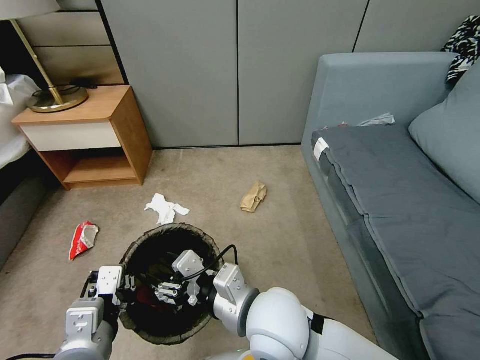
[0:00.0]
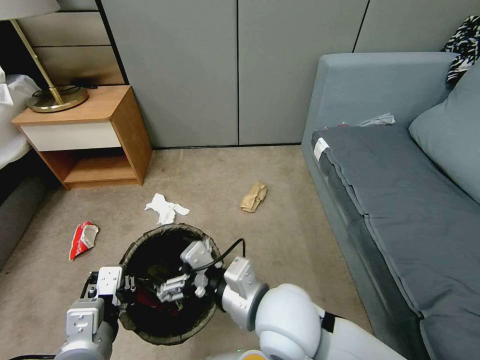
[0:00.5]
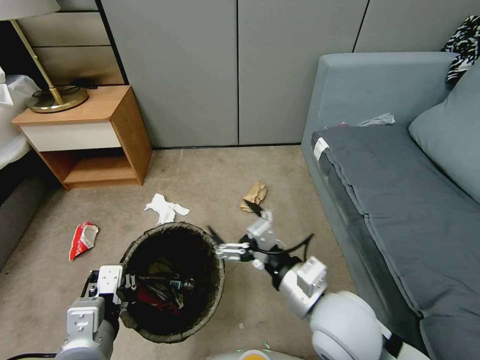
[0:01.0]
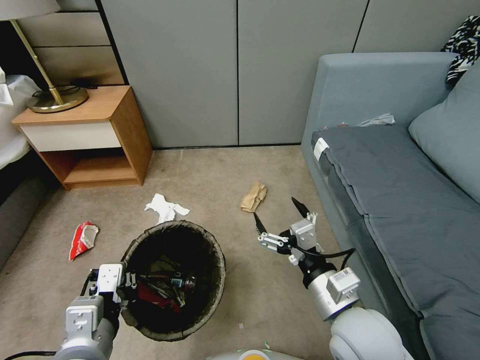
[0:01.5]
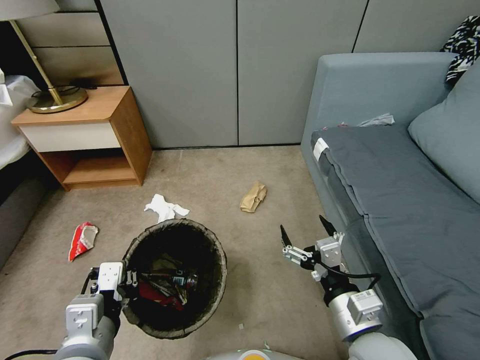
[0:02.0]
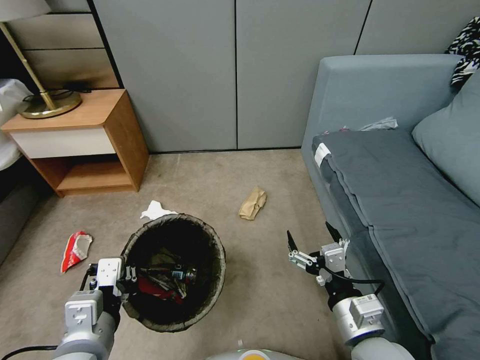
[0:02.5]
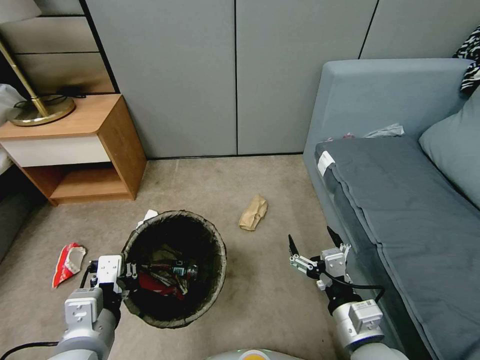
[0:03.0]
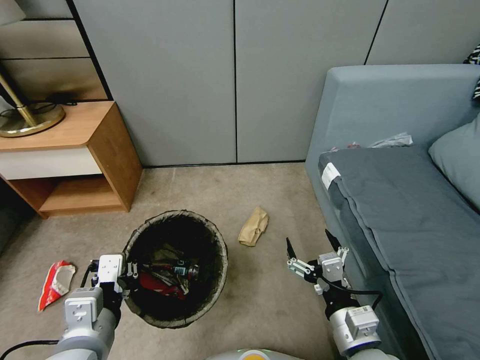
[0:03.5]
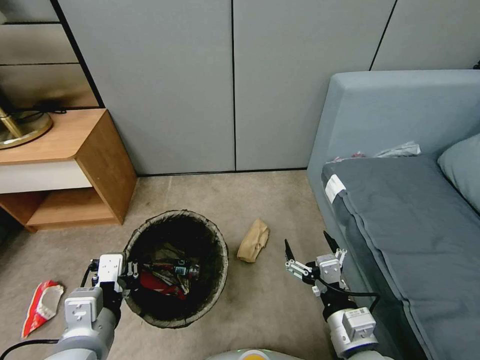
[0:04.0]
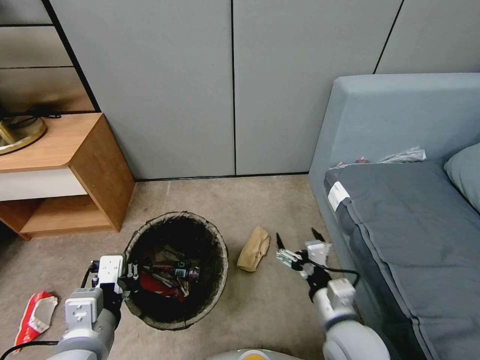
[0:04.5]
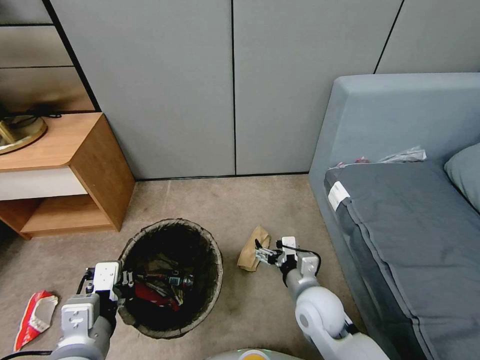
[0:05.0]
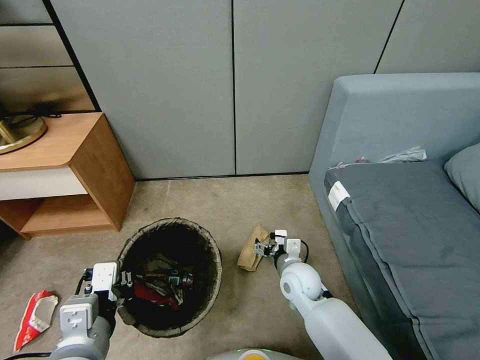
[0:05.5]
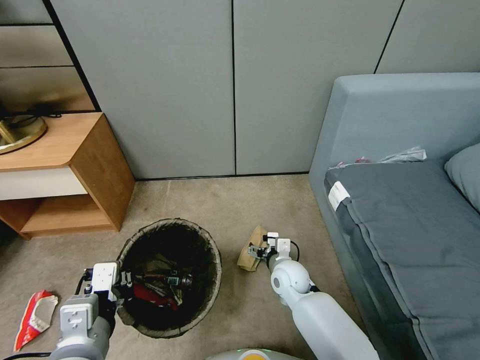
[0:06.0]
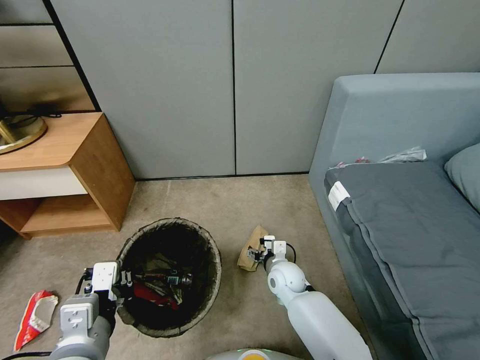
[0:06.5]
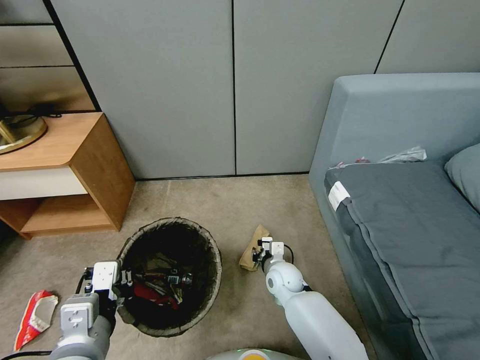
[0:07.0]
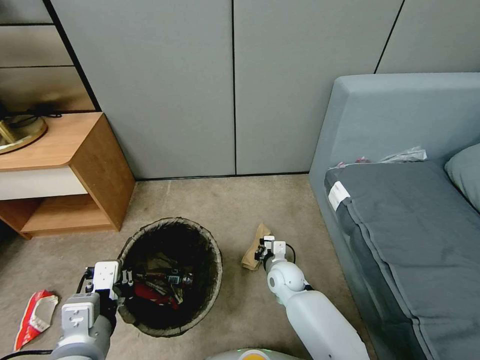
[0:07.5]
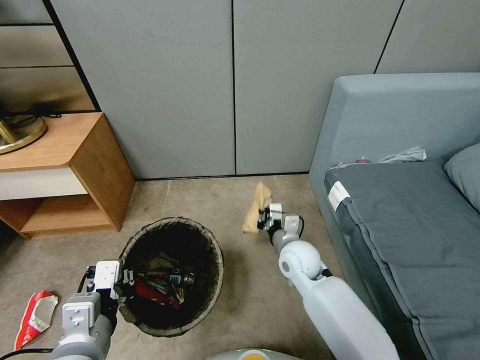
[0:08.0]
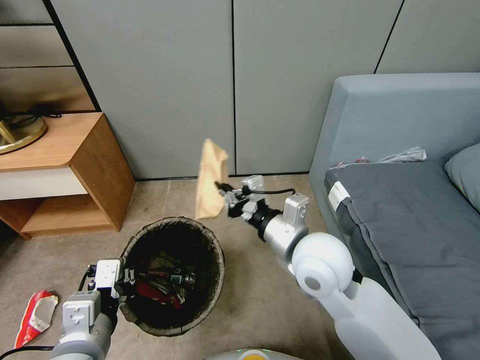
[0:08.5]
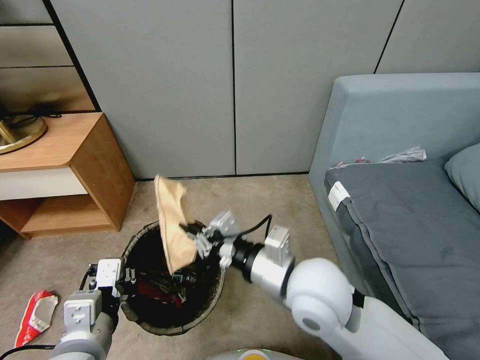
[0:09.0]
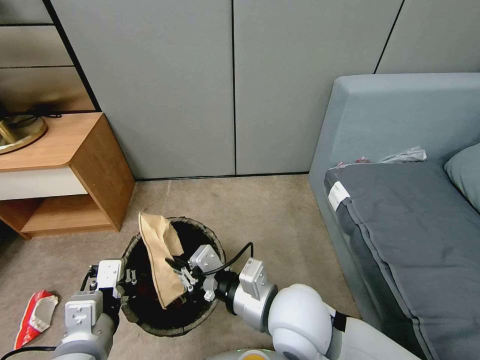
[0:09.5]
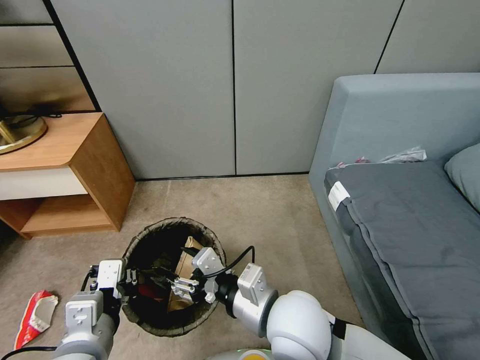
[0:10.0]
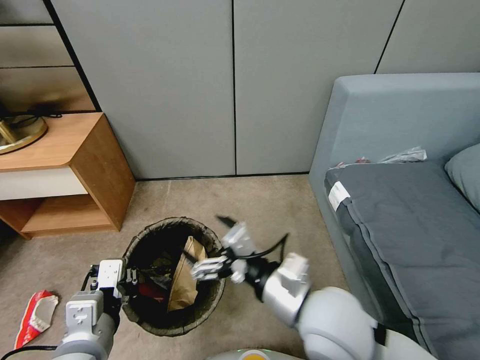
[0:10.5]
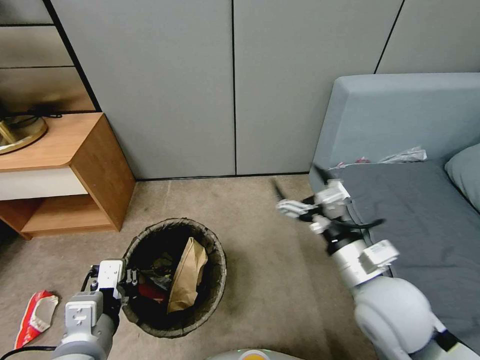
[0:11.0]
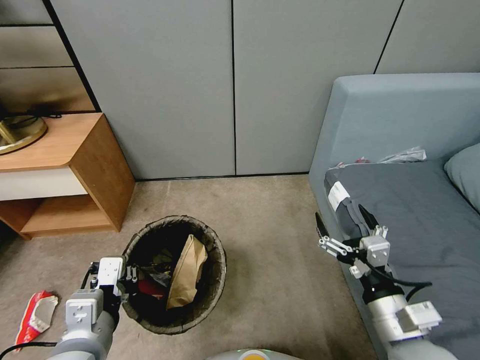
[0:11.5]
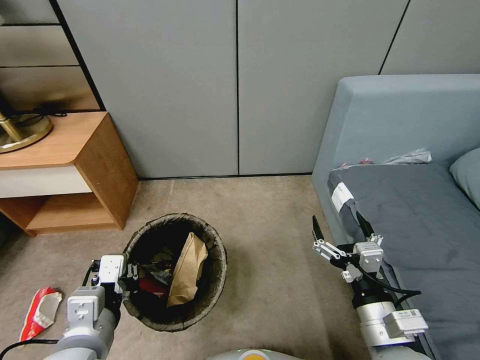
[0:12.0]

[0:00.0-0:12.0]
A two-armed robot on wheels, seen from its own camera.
Task of the whole recording: Pick up the trash bin, then pick up the garbage from the floor and place it into the trash bin.
0.0 to 2.0 s: The right gripper moves to the right, roughly 15 cm, and opens up.
4.0 to 6.0 s: The right gripper heads forward and downward, covering about 25 cm.
6.0 to 8.0 s: The right gripper goes some 10 cm upward, and closes up.
8.0 to 10.0 s: The right gripper travels backward and upward by some 20 cm, and opens up.
10.0 to 12.0 s: The right gripper shifts some 15 cm to the right, and opens its fingers.

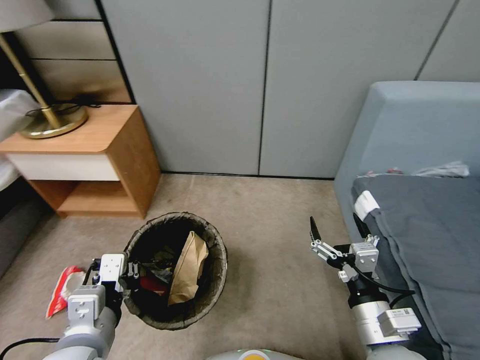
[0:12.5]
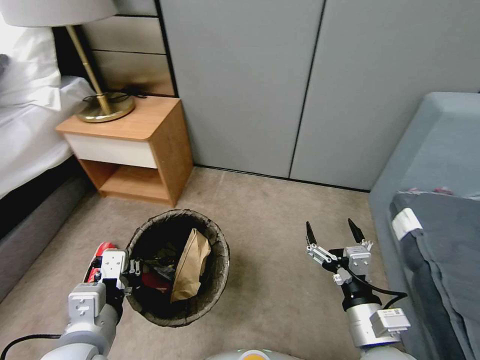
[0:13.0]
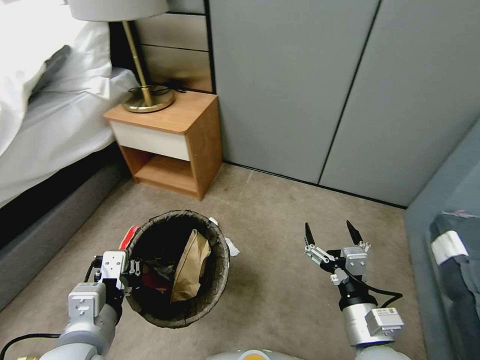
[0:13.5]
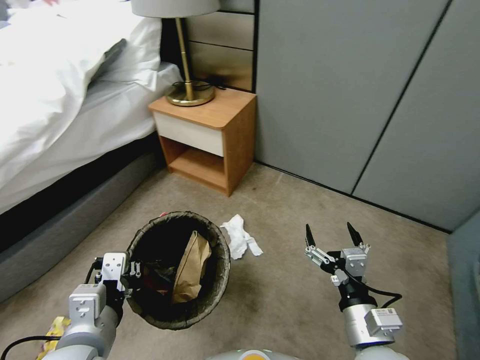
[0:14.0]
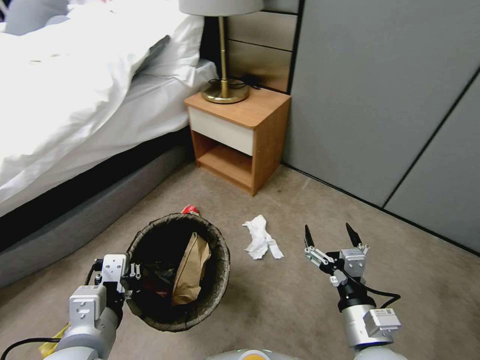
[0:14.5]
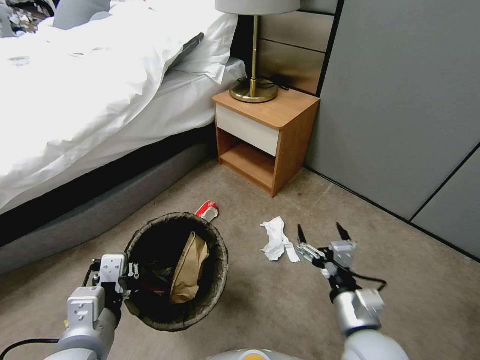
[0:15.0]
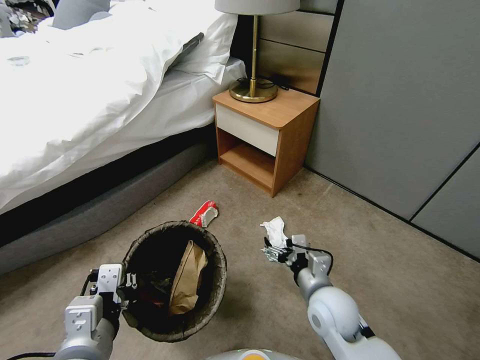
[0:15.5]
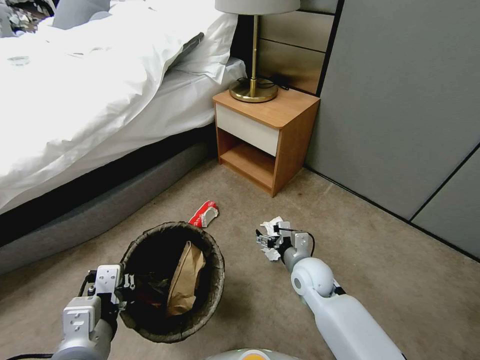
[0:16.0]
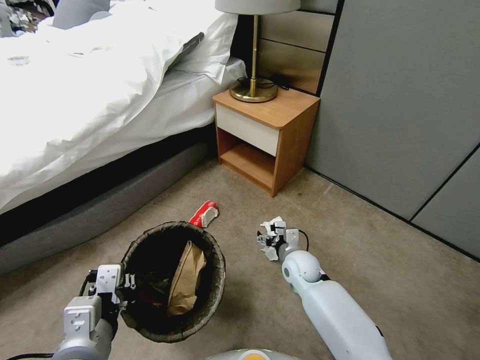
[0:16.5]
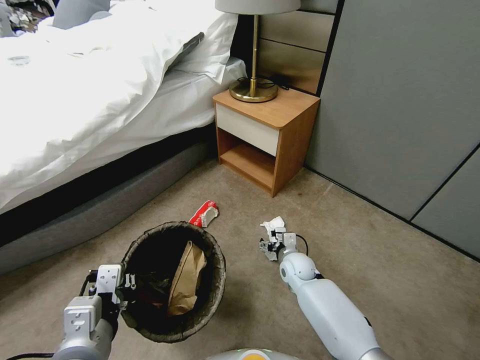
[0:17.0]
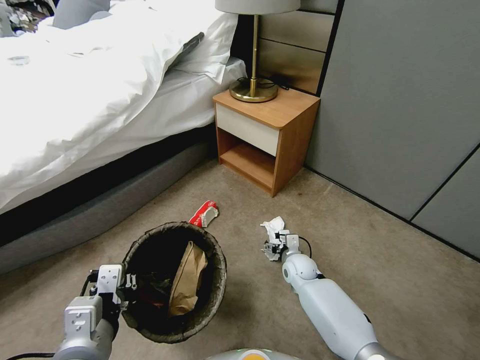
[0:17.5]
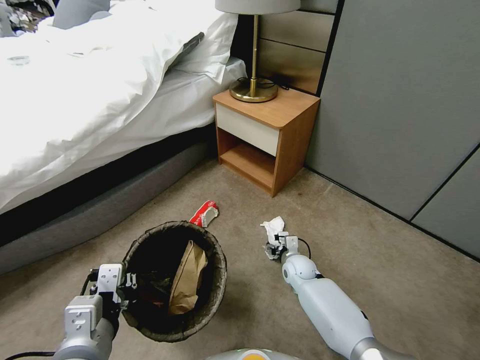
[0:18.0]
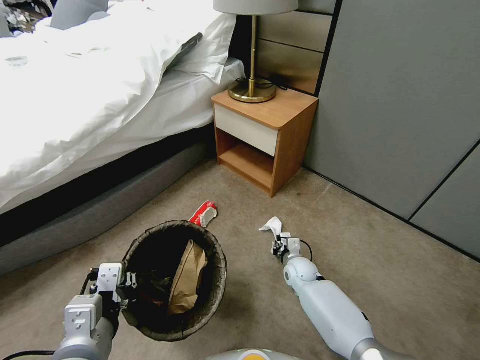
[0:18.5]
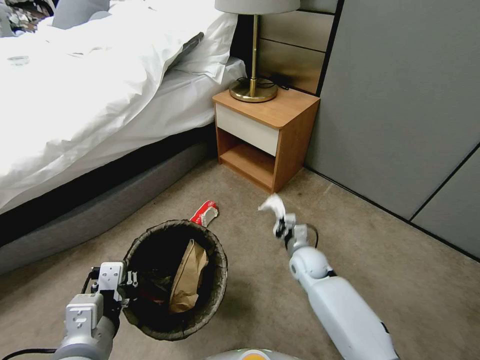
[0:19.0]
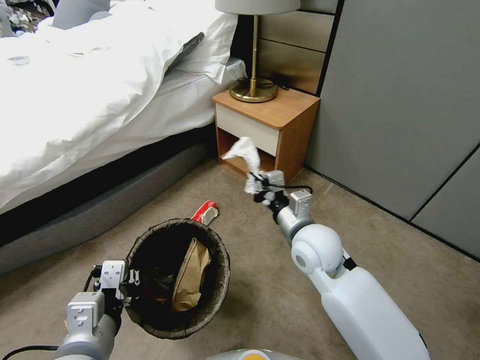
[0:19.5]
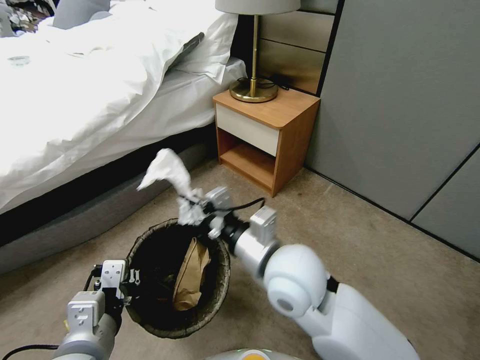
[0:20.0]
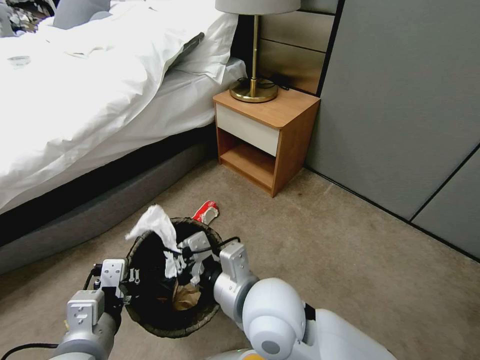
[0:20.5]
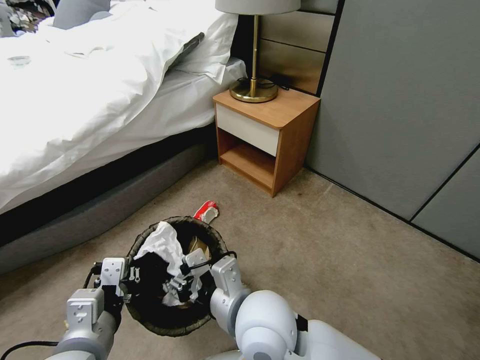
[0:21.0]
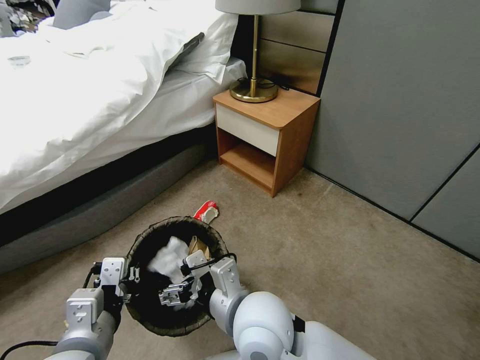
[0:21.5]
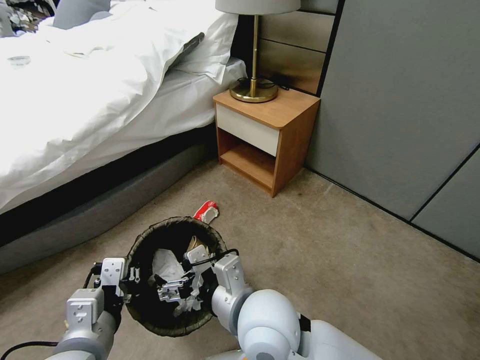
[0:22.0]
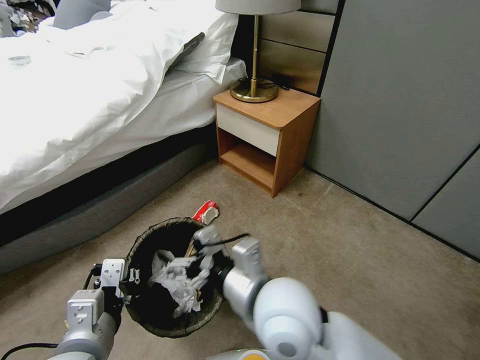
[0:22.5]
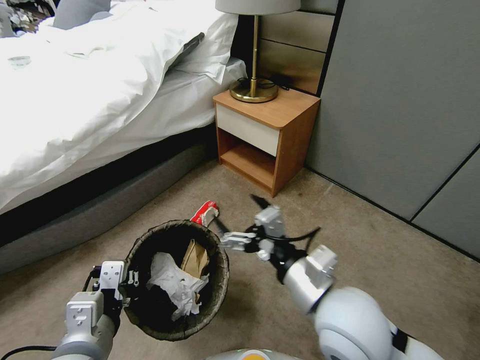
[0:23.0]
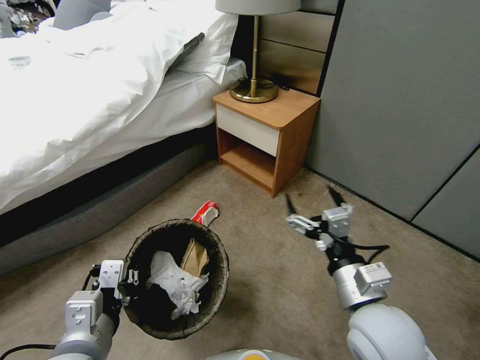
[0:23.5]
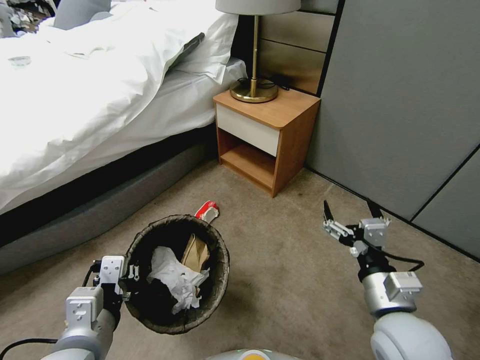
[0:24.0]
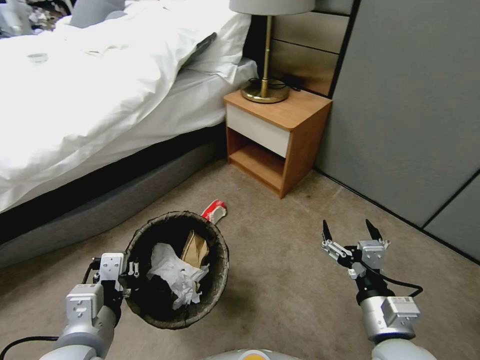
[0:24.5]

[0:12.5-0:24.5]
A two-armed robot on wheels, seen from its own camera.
Task of the whole recording: Pick up the trash bin, then pick up the garbage from the floor and place it into the trash bin.
14.5 to 16.5 s: The right gripper moves forward and downward, some 25 cm.
16.5 to 18.5 s: The right gripper moves downward, roughly 10 cm, and closes up.
18.5 to 20.5 s: The right gripper is displaced upward, backward and to the left by approximately 40 cm.
20.5 to 22.5 s: The right gripper opens up.
22.5 to 24.5 s: The right gripper travels to the right and downward by roughly 20 cm.

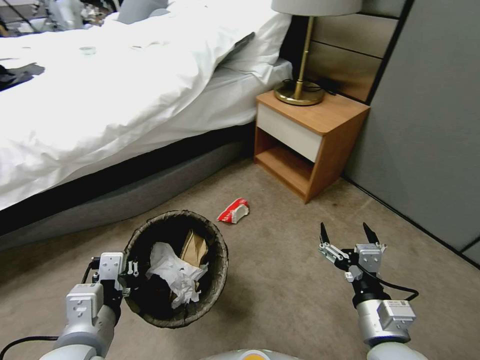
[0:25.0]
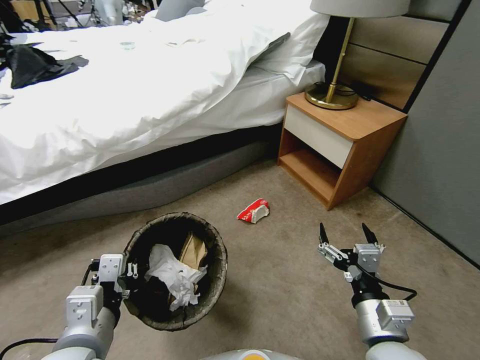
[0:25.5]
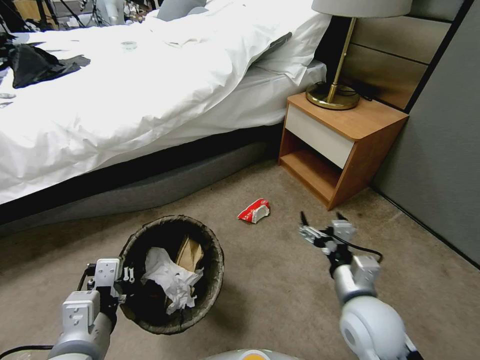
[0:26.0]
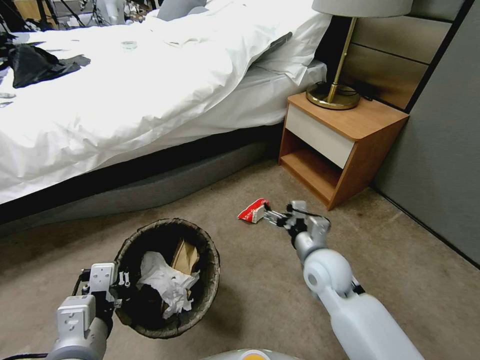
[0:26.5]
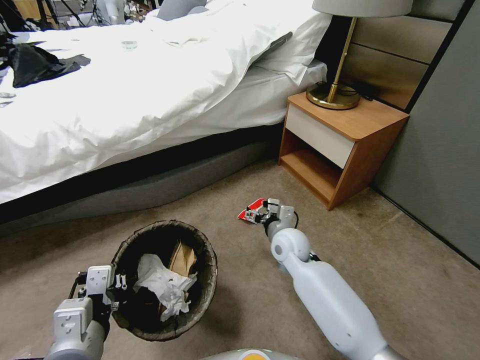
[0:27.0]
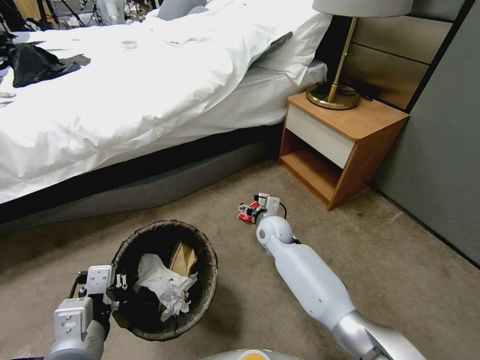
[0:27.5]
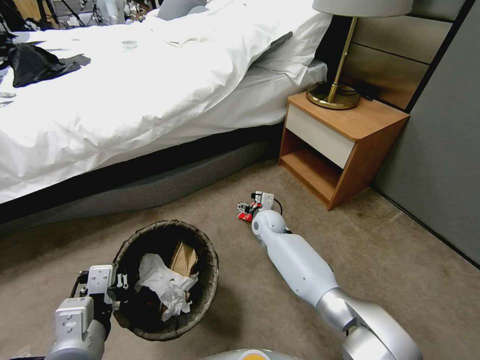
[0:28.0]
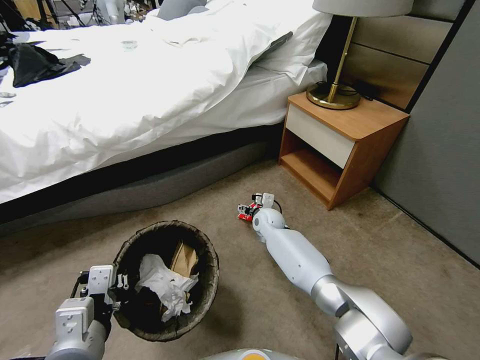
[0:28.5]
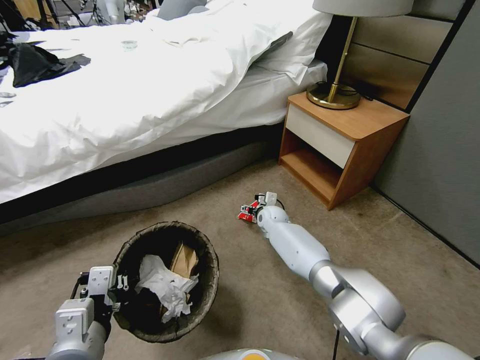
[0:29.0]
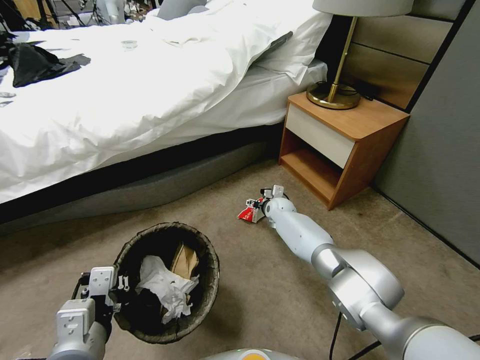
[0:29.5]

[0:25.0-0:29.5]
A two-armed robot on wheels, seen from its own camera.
Task of the whole recording: Pick up the trash bin, then pick up the garbage from the floor and place it into the trash bin.
25.0 to 27.0 s: The right gripper travels forward and to the left by some 25 cm.
27.0 to 29.5 s: The right gripper travels forward and downward by some 20 cm.
